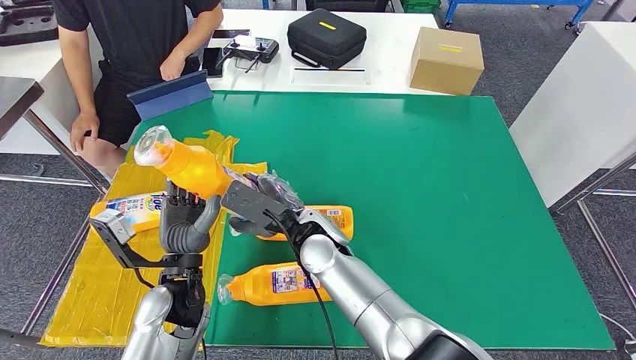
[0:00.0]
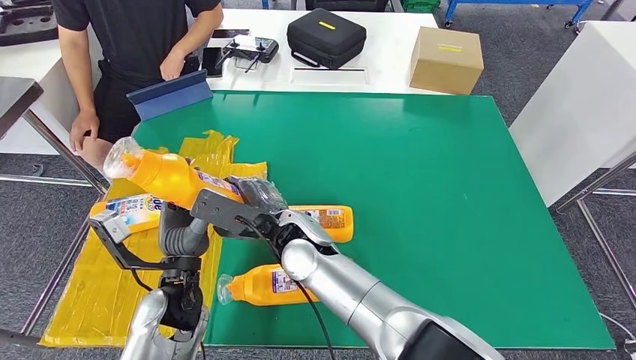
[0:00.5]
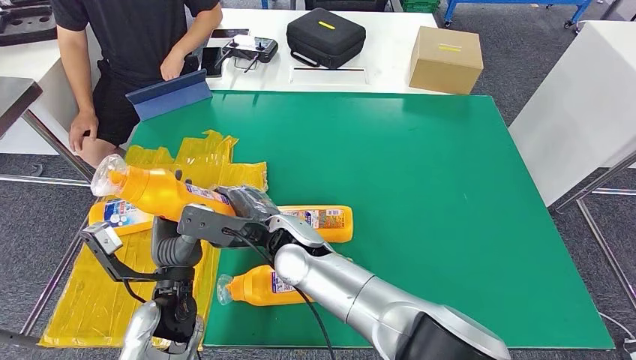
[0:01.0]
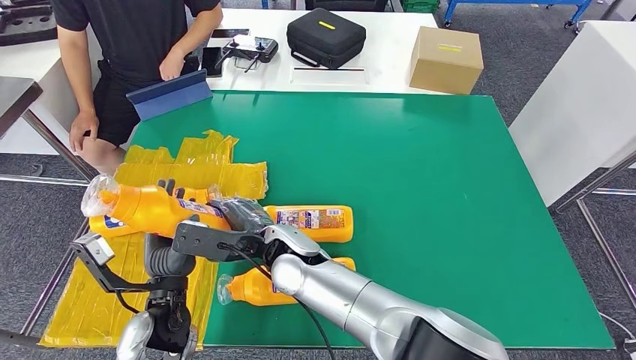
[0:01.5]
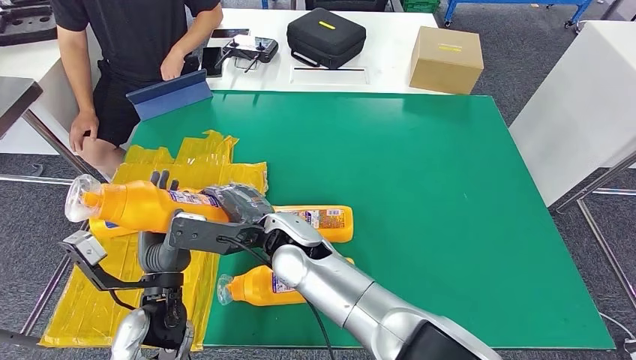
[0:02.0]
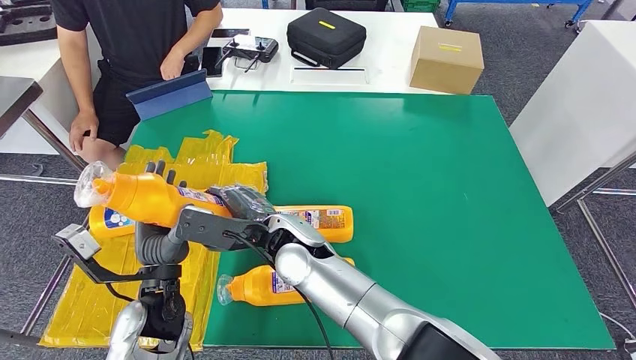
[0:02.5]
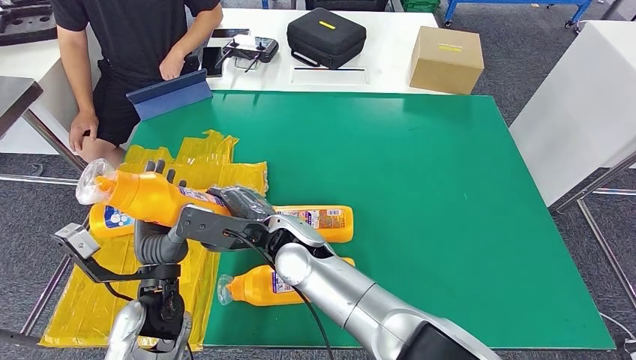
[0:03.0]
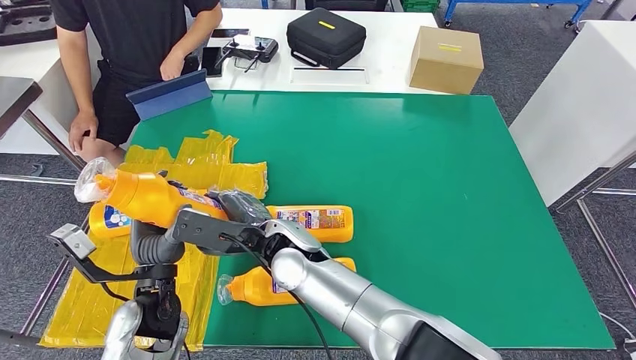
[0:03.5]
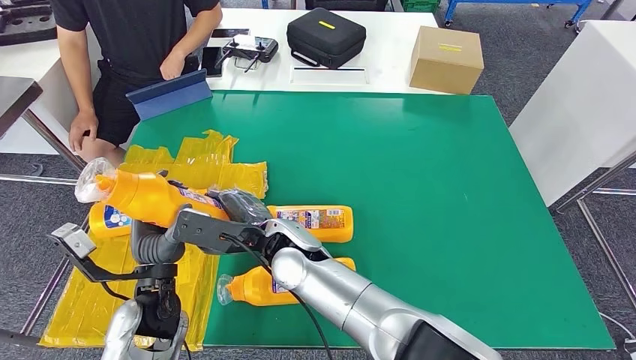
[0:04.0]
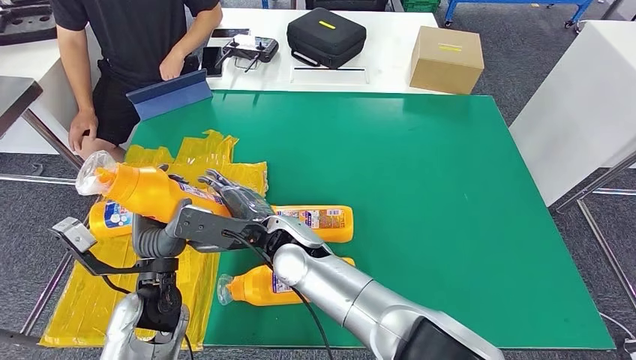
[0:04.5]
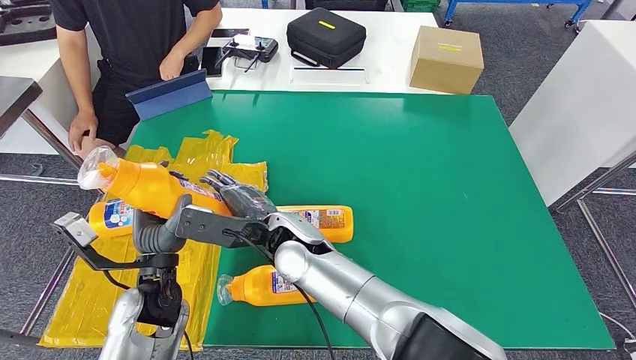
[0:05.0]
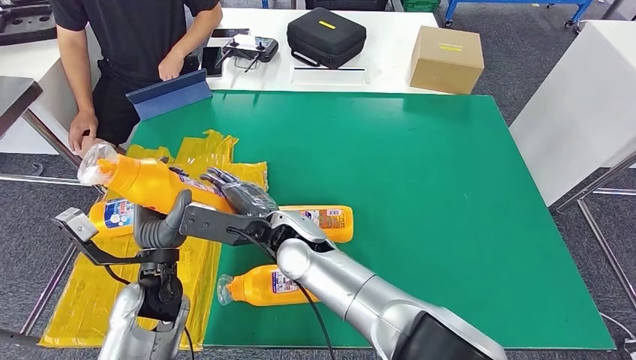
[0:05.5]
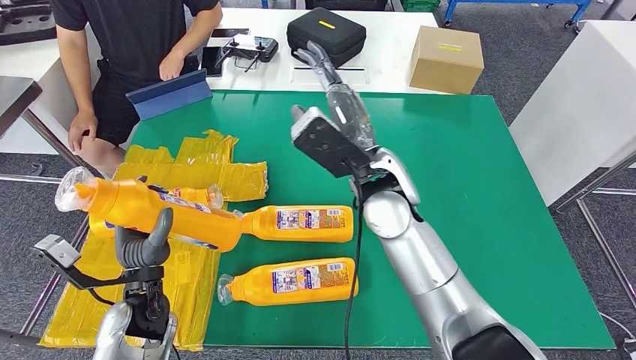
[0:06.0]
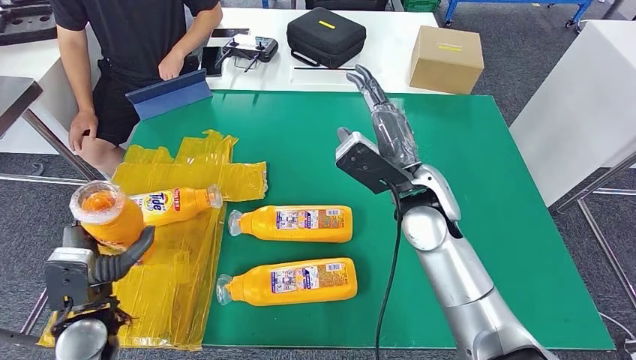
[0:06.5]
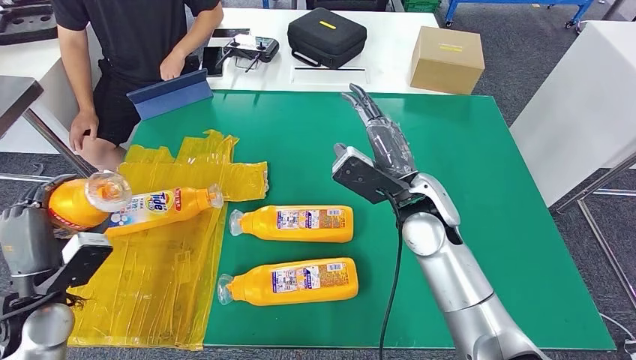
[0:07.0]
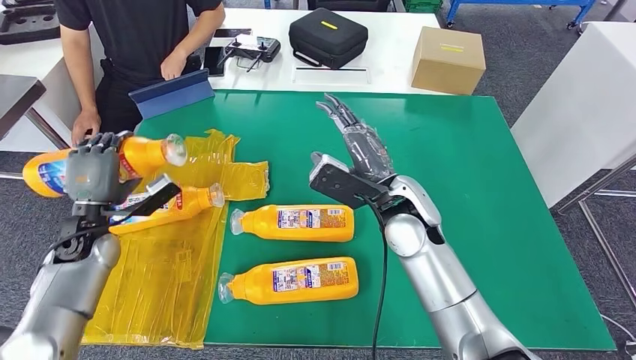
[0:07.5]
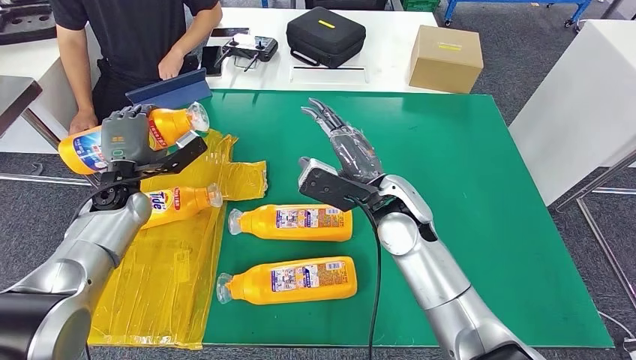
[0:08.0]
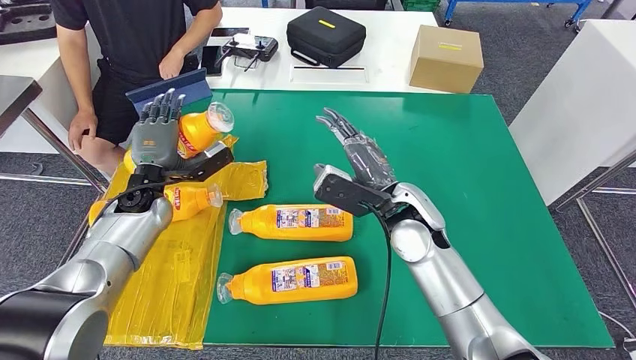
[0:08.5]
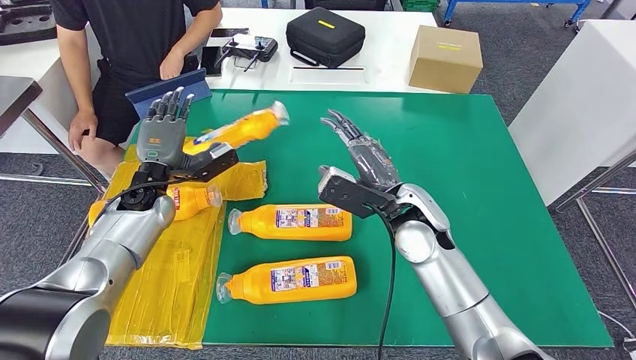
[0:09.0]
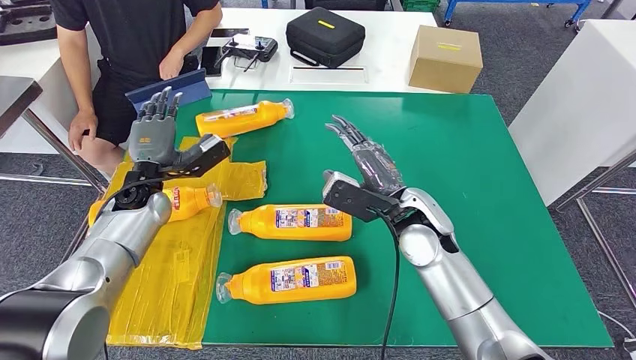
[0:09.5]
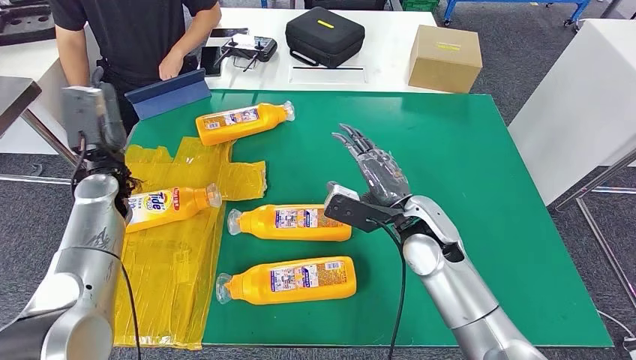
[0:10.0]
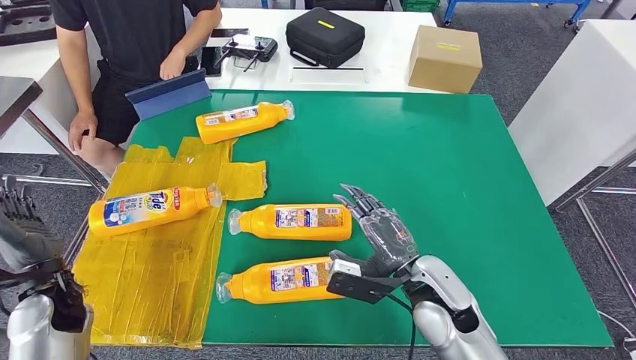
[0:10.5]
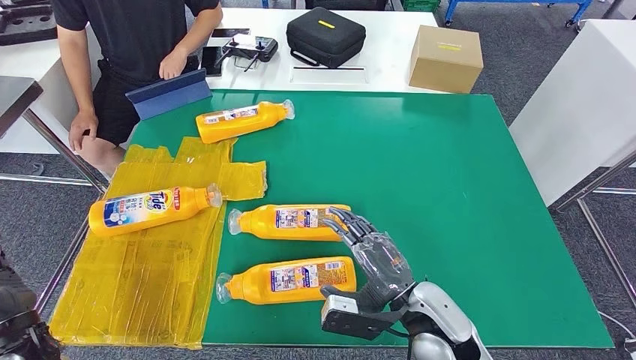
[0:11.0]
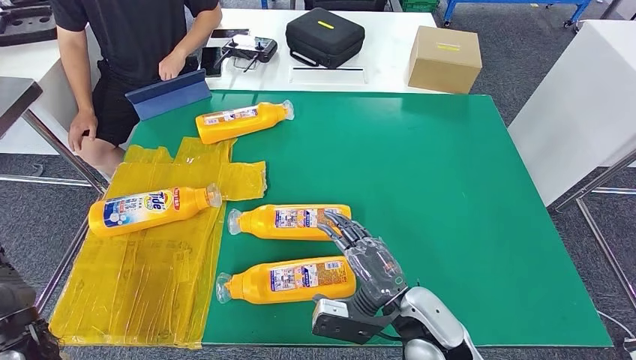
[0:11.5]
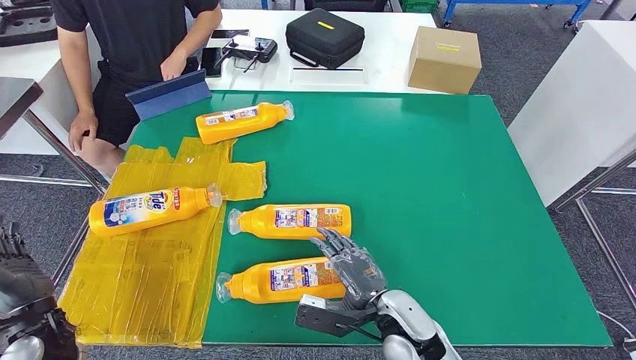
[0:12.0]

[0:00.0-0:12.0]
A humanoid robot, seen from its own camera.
Step, 0:00.0 to 0:10.0: Flip the bottle to face forward.
0:00.0 to 0:02.0: The right hand ends up approximately 5 cm from where it was.
0:02.0 to 0:04.0: There are only small adjustments of the hands.
0:08.0 to 0:10.0: The right hand changes place by some 5 cm.

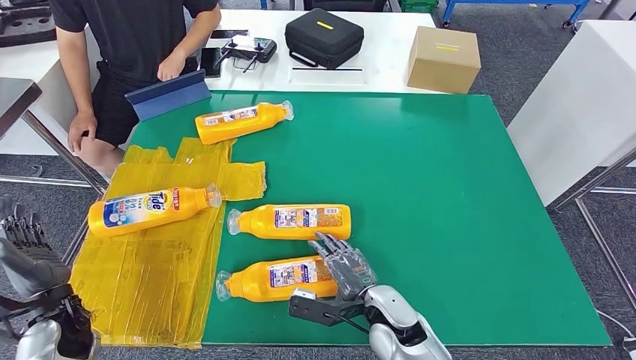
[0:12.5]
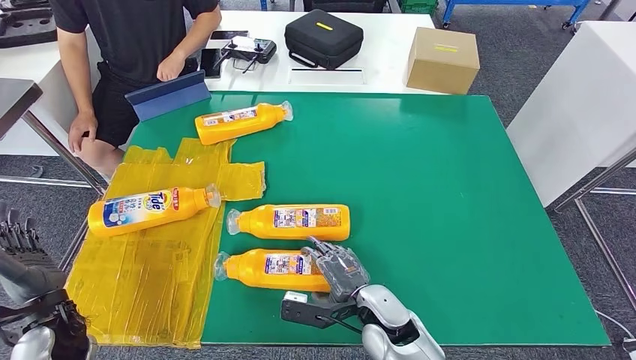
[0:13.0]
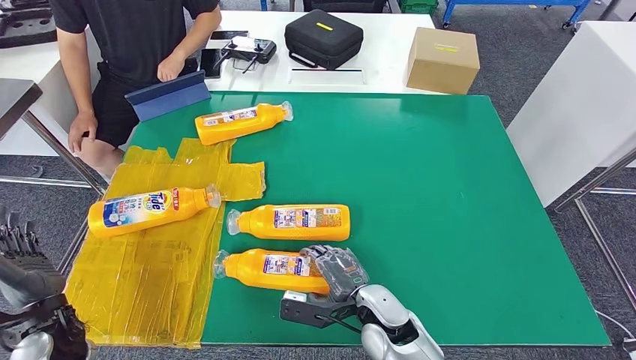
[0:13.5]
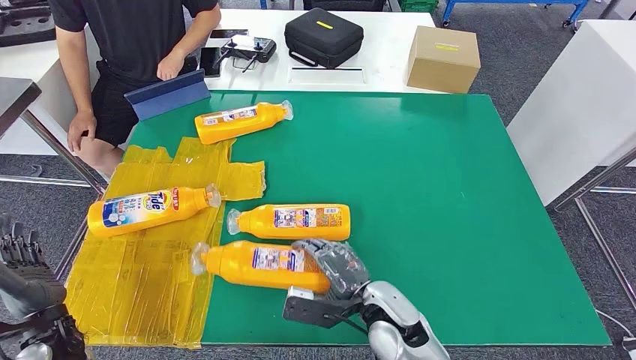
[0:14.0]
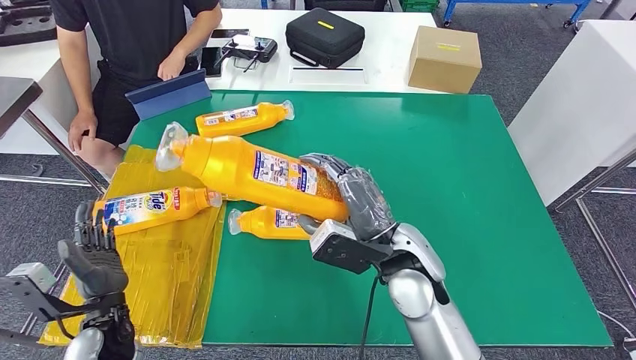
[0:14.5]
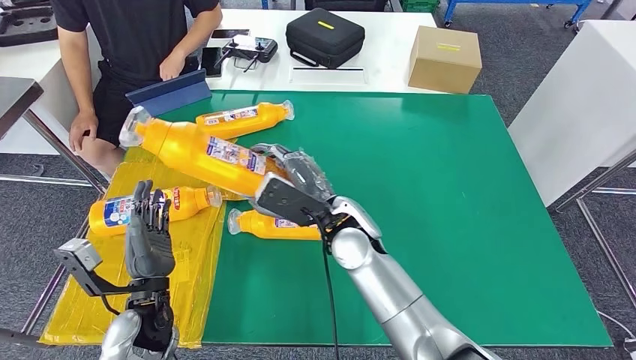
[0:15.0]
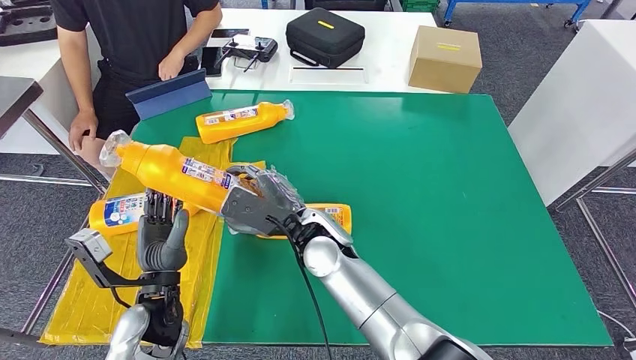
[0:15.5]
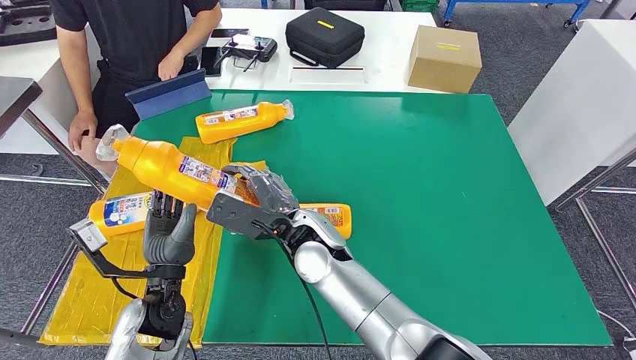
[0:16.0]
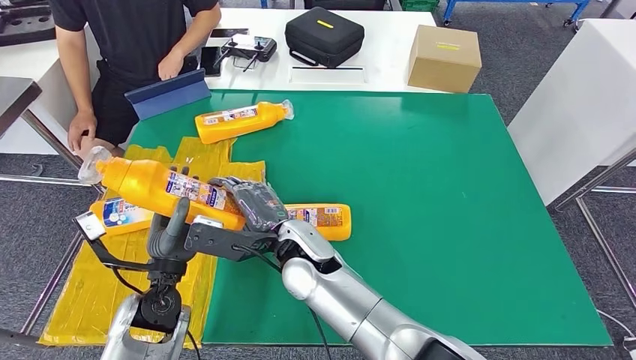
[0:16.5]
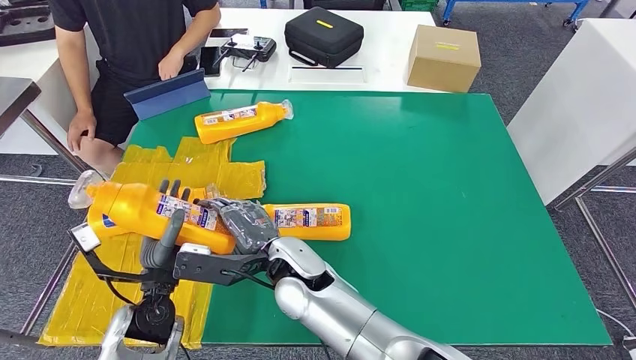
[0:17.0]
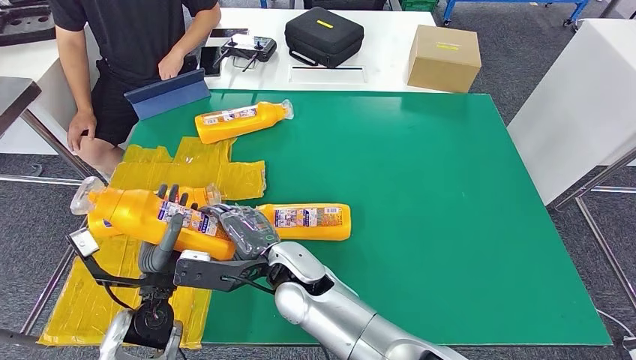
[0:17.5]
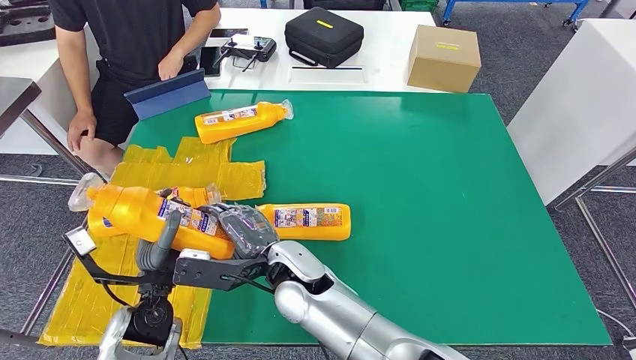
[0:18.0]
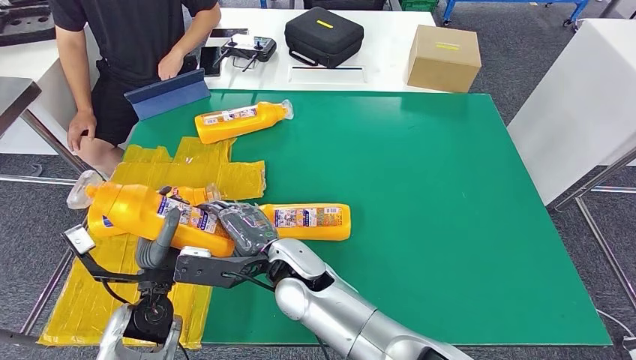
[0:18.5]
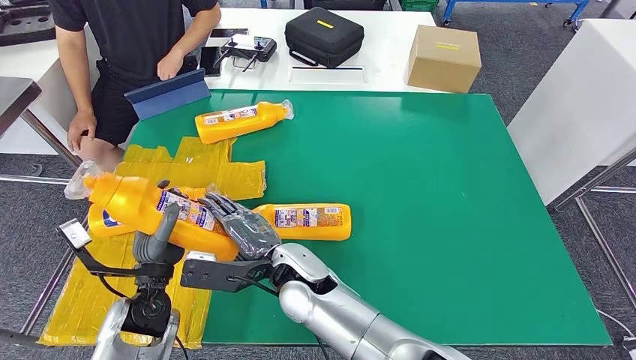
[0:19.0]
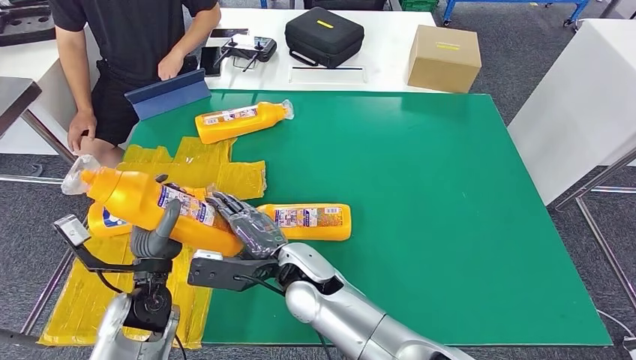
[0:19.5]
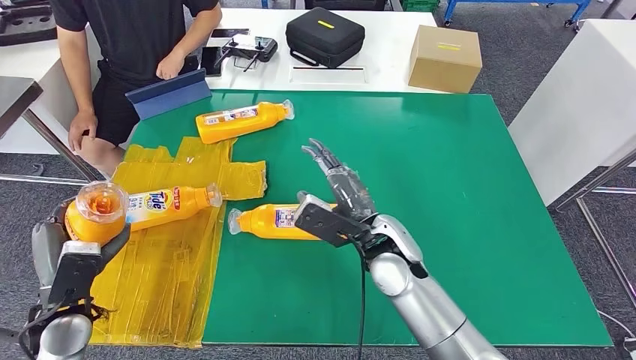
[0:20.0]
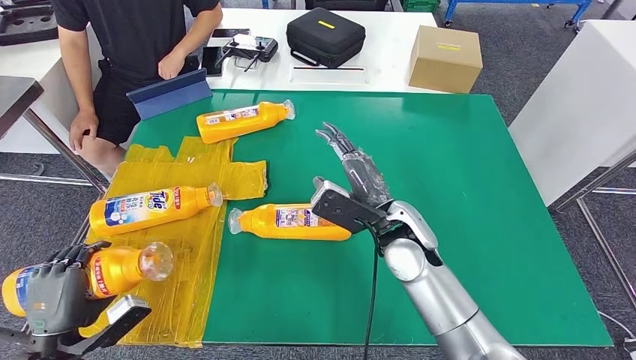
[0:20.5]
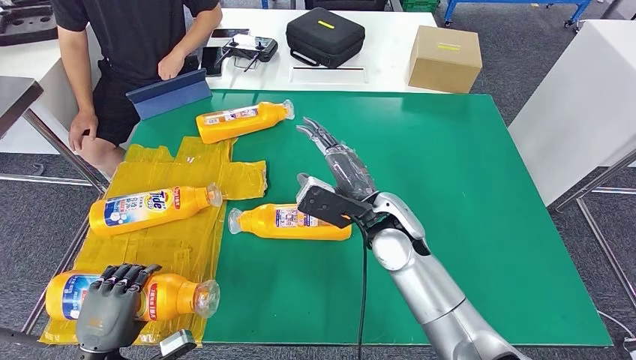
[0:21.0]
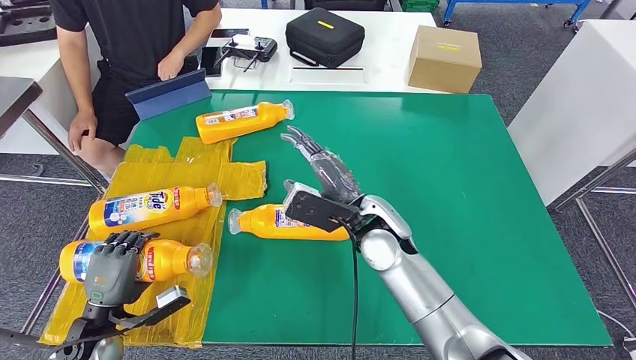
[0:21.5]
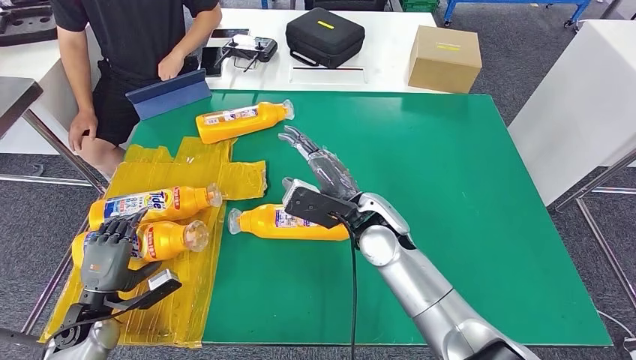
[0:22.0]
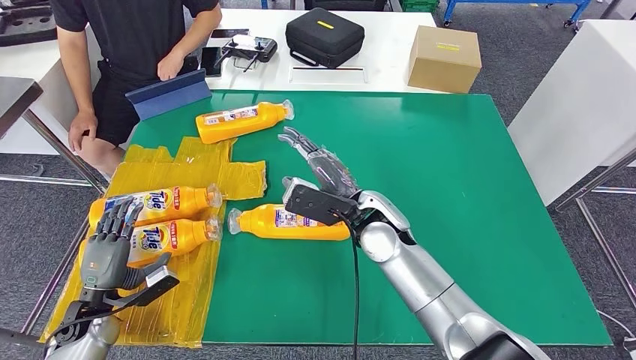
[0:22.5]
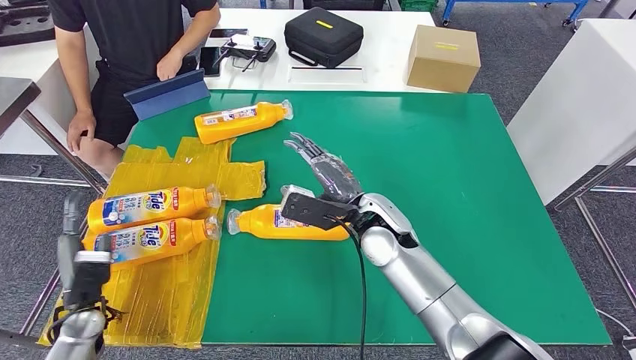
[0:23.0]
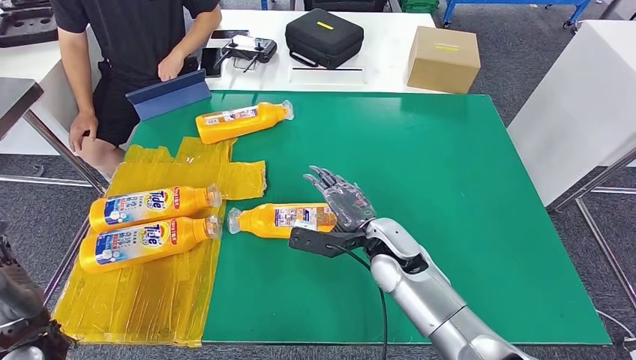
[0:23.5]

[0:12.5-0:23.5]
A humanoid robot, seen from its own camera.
Step, 0:12.5 to 0:19.0: Pick up the bottle from the table.
Step, 0:19.5 to 0:22.0: Flip the bottle to face forward.
0:16.0 to 0:18.0: The right hand ends up approximately 5 cm from where it was.
0:20.0 to 0:21.5: The left hand shifts some 5 cm downward, and travels backward and back again, roughly 10 cm each way.
0:21.5 to 0:23.5: The left hand shifts some 5 cm upward. Meanwhile the right hand is displaced downward by roughly 5 cm.
